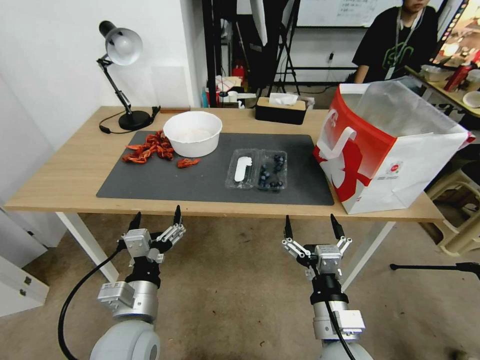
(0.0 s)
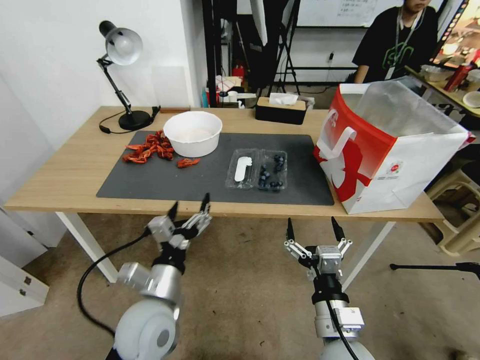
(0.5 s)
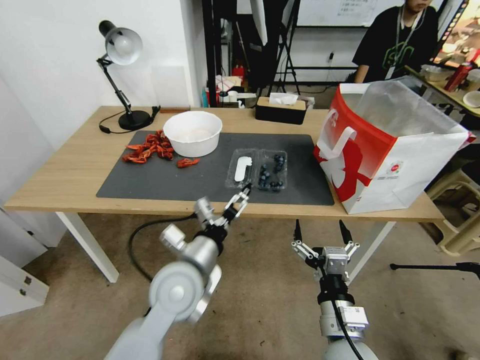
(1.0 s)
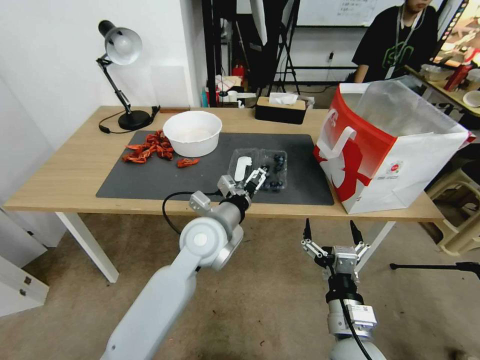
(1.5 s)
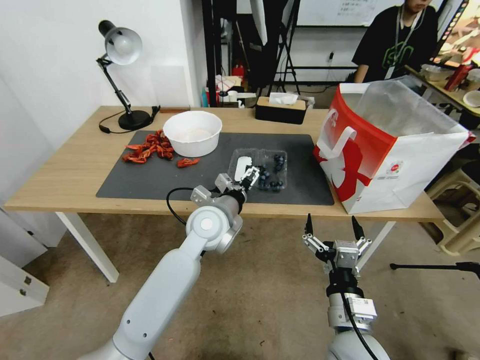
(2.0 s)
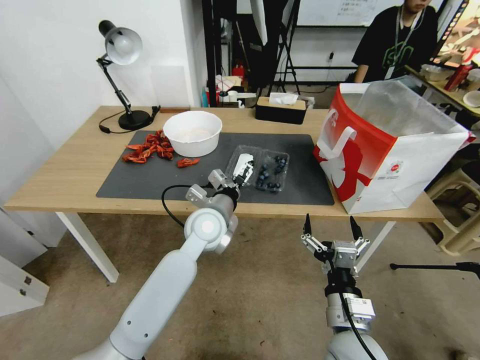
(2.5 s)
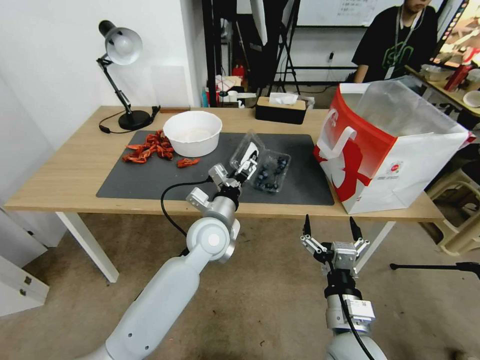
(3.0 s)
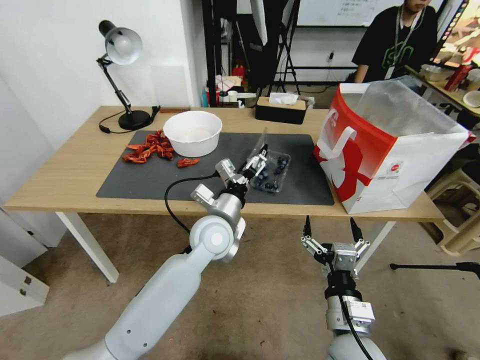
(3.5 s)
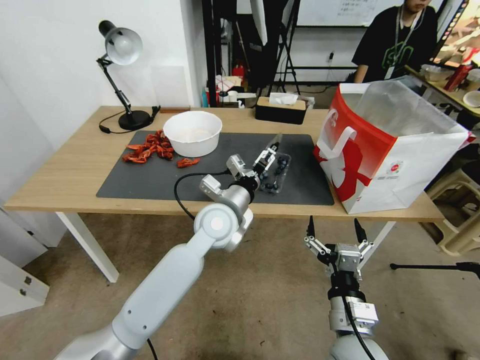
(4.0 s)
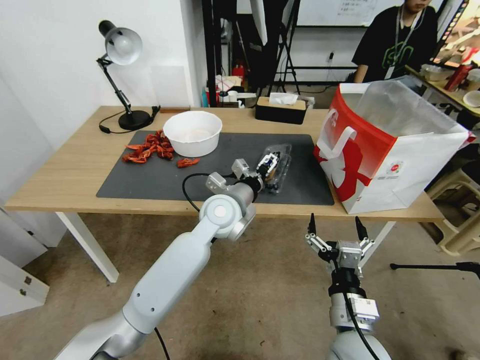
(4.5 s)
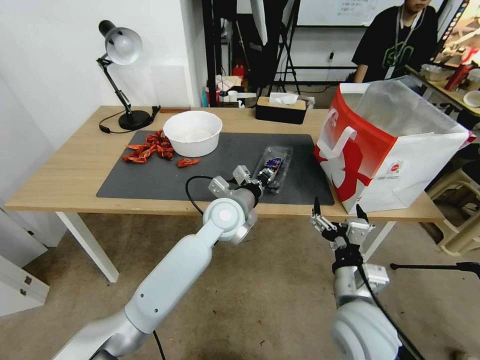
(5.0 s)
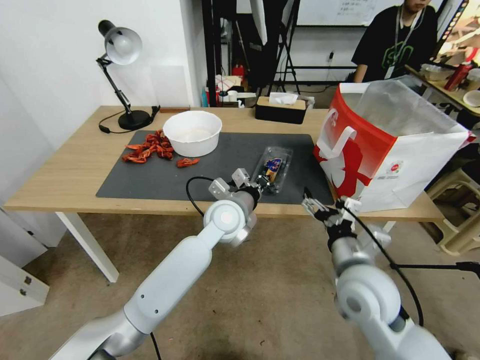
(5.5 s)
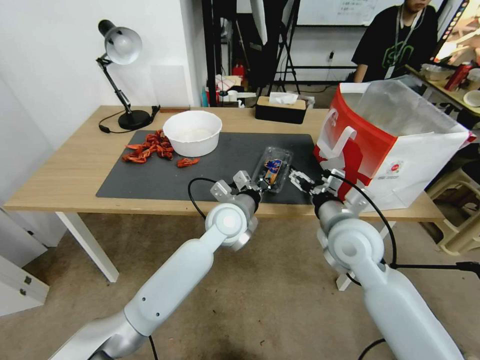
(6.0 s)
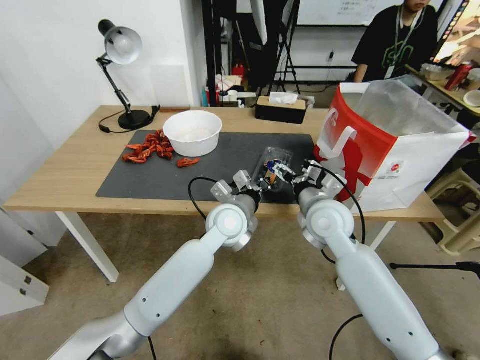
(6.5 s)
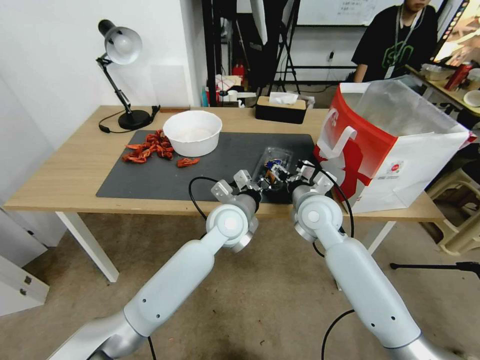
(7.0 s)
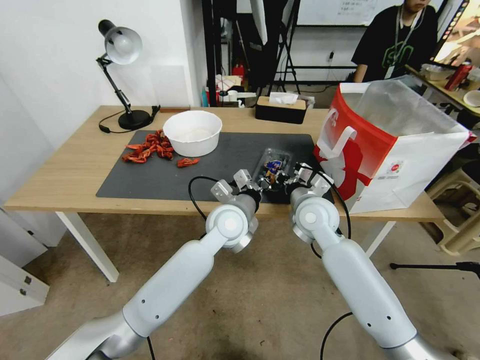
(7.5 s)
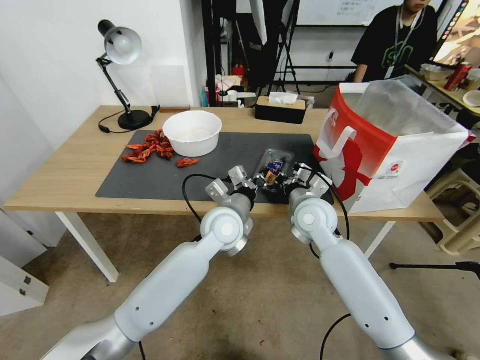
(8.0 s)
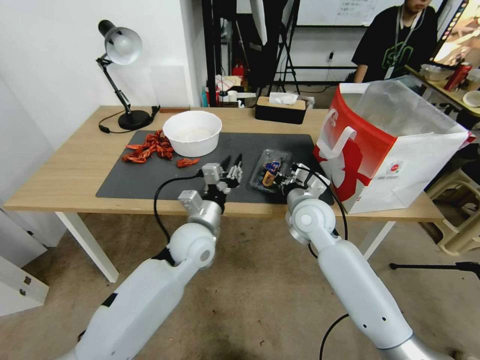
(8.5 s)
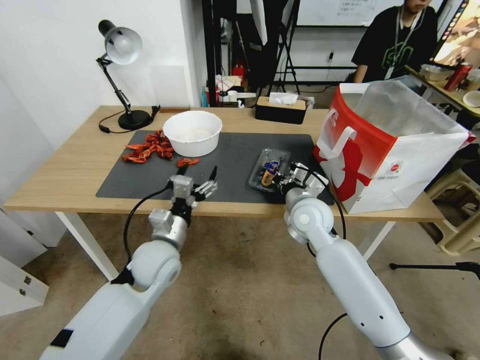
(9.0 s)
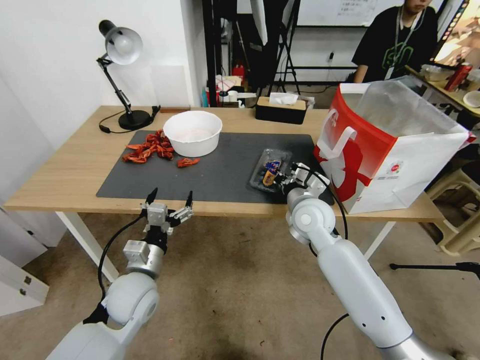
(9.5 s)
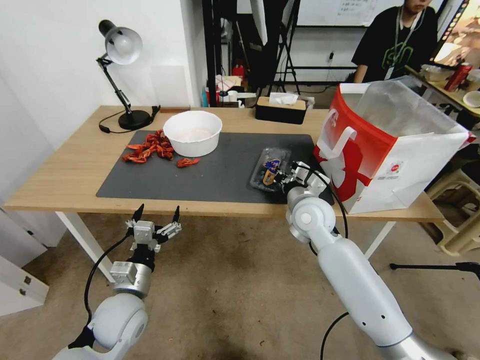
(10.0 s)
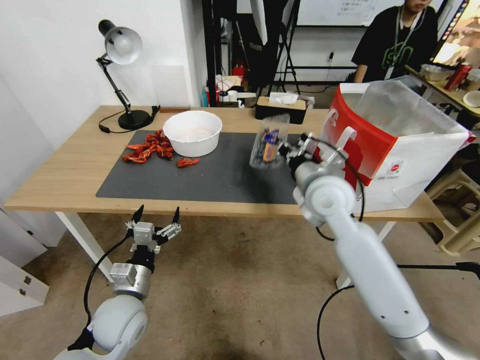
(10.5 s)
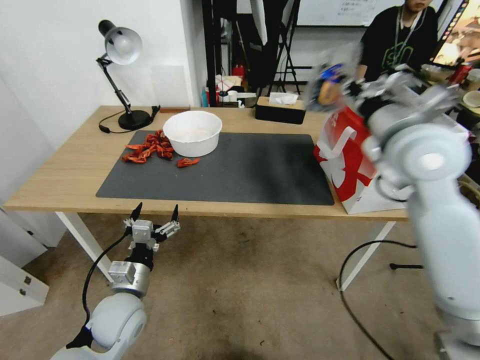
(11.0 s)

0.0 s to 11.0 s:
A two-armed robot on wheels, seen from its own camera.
Task of the whole recording: Close the takeout container lid, then place the container into the takeout bag.
0.0 to 2.0 s: The left gripper goes roughly 25 cm forward and to the right.
3.5 to 5.5 s: The right gripper travels forward and upward by about 10 cm, while the left gripper closes.
5.5 to 7.5 s: The right gripper shifts approximately 15 cm forward, and closes.
7.5 to 9.0 s: The left gripper moves to the left and backward, some 15 cm, and opens its fingers.
9.0 to 11.0 s: The left gripper shifts about 10 cm backward, to the left and downward; the right gripper goes roughly 25 cm upward and to the right.

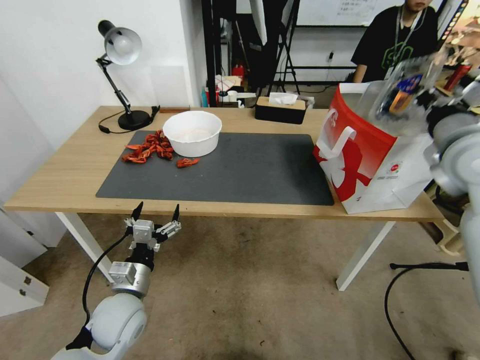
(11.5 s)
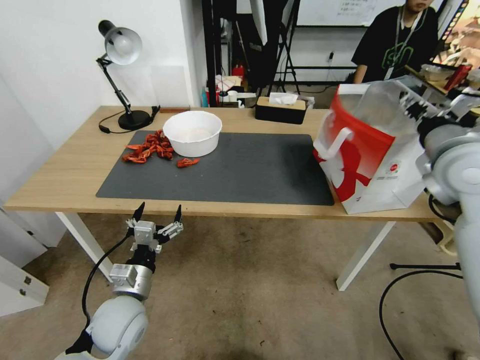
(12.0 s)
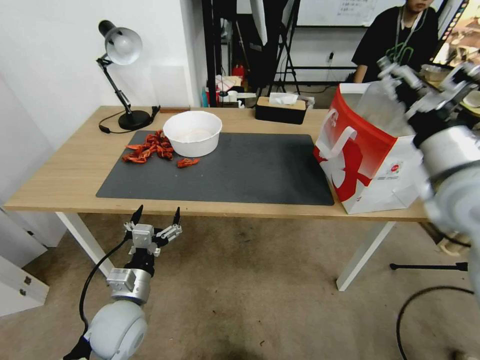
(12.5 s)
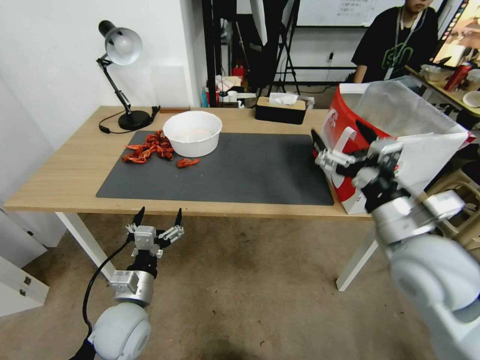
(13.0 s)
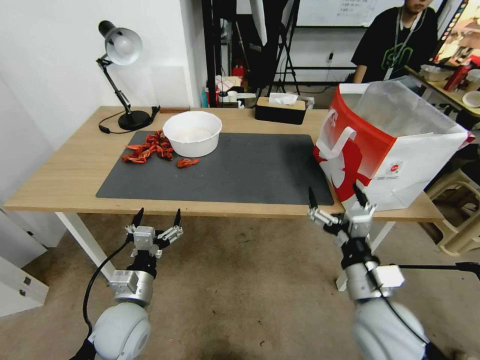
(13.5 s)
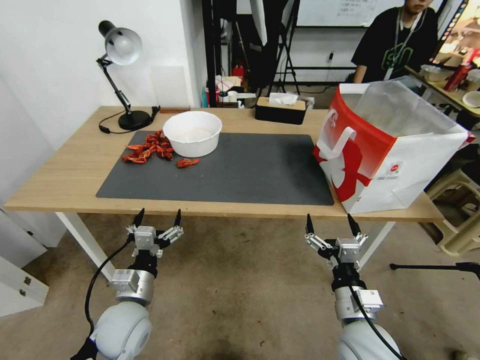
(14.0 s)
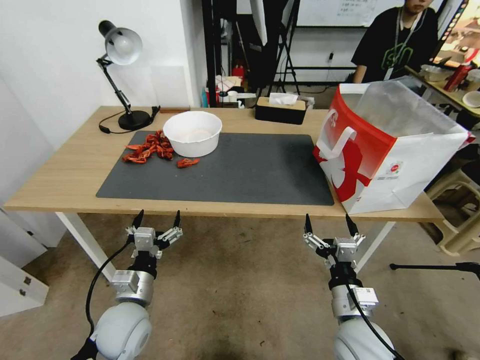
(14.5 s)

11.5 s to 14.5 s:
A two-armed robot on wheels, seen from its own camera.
Task of the whole recording: Close the takeout container lid, then place the container into the takeout bag.
11.5 to 13.0 s: The right gripper goes approximately 20 cm backward, downward and to the left, and opens its fingers.
13.0 to 14.5 s: The right gripper is displaced downward by roughly 20 cm.
